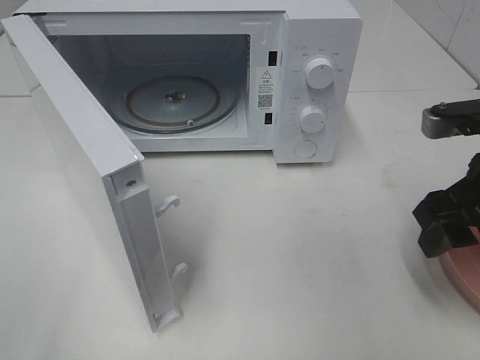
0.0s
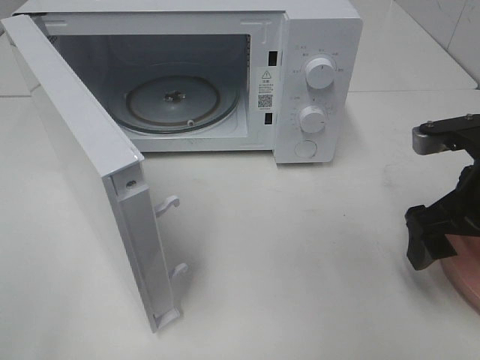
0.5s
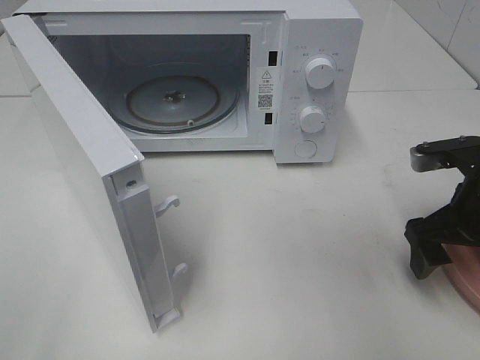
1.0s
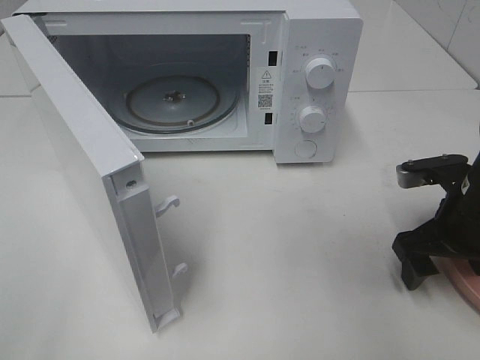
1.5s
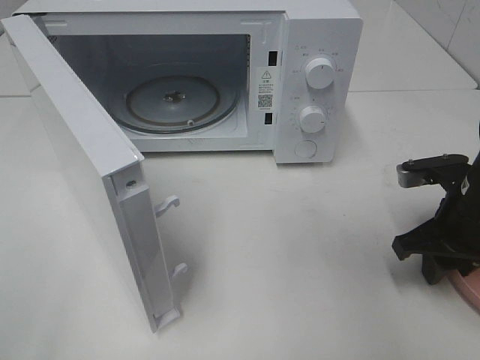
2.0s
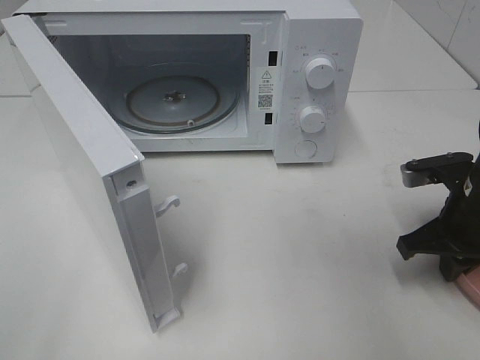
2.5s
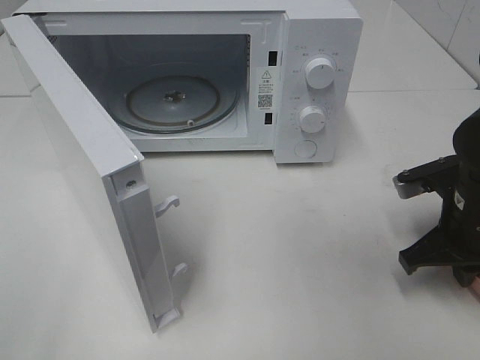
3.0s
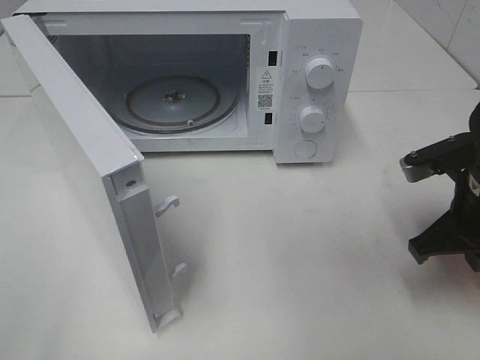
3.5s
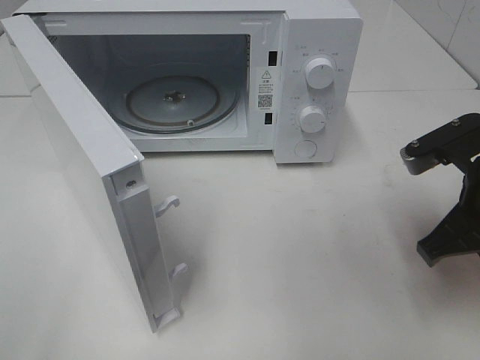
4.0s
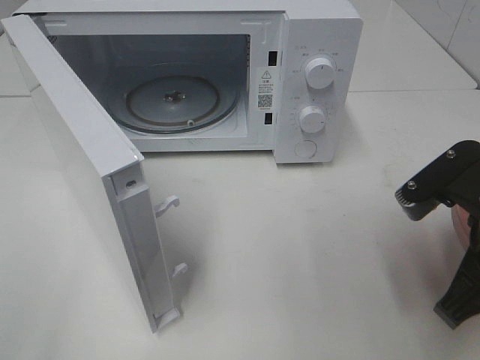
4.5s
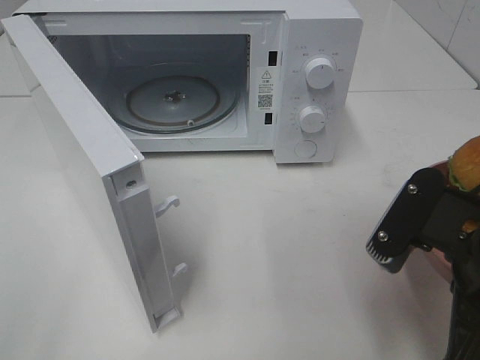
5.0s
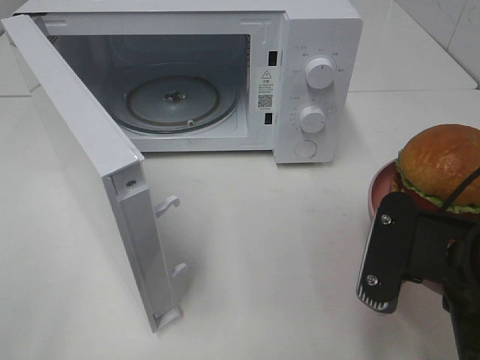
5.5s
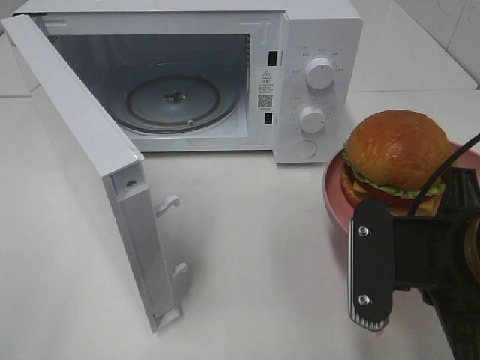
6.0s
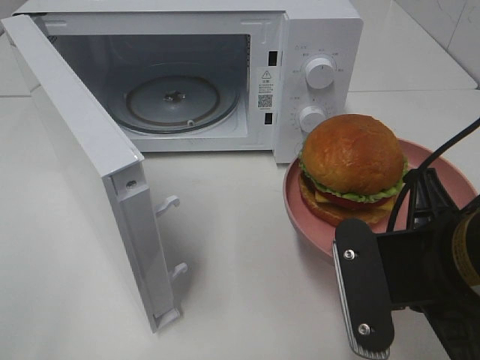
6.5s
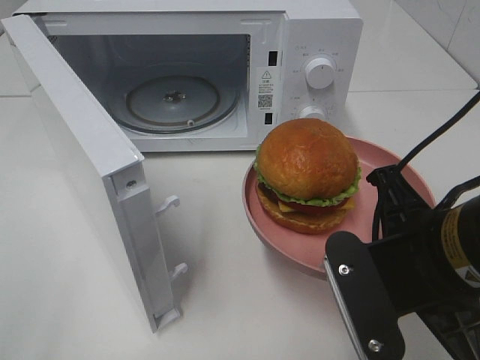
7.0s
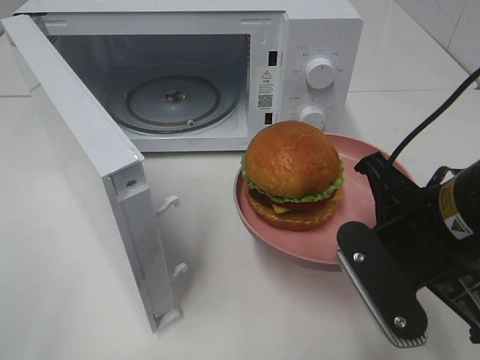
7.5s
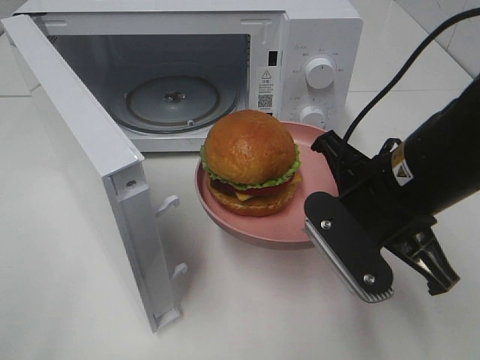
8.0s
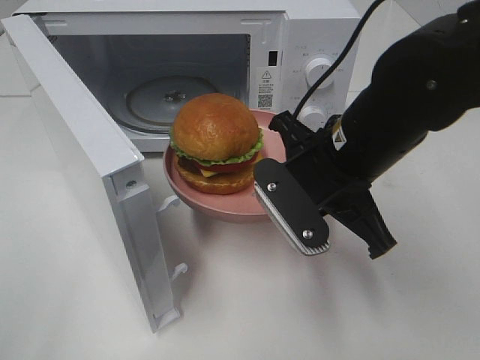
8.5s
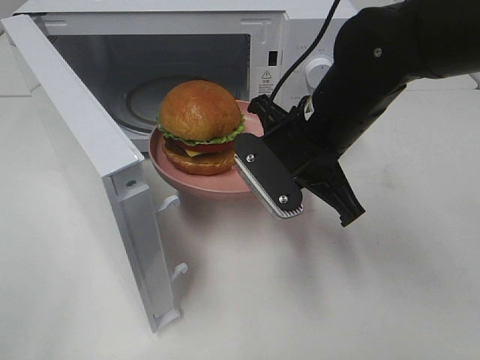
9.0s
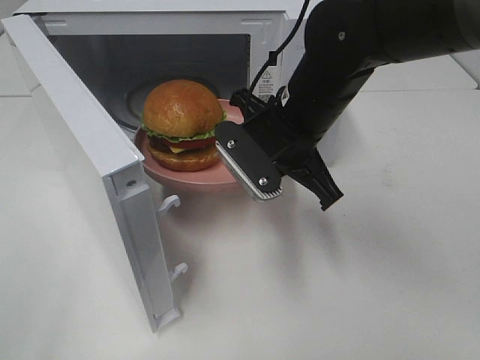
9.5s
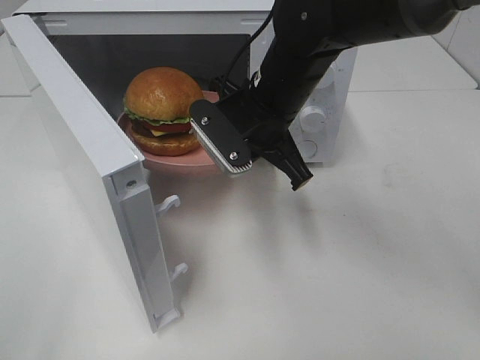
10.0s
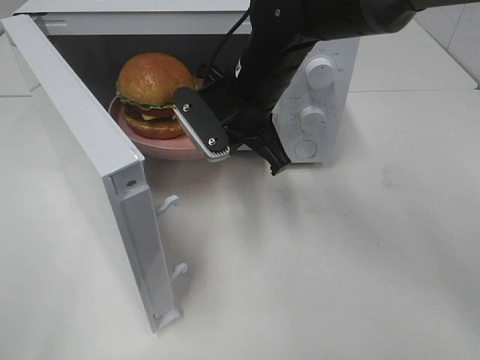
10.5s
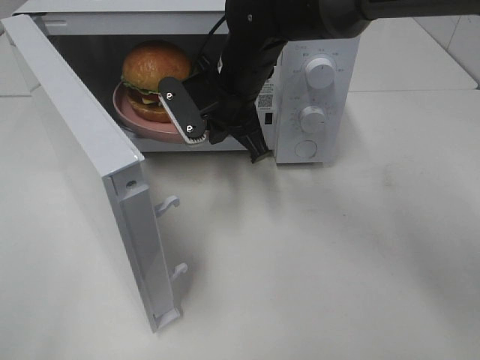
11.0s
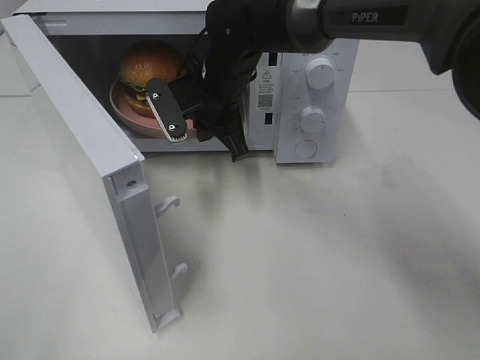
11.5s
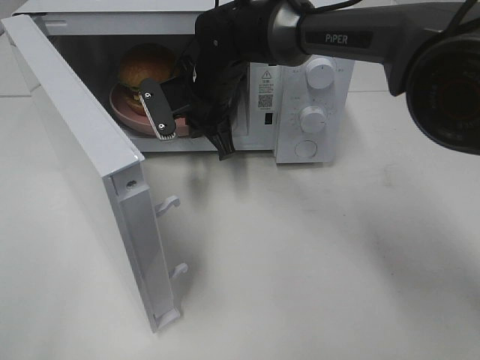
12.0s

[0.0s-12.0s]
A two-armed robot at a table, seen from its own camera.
Task of the whole recording: Heat the burger.
Step, 0.0s to 2.5s: Right hand: grab the plate with the hamburger.
0.0s to 2.0s: The right gripper goes roughly 10 cm downward, and closes up.
2.0s to 4.0s: The right gripper is displaced upward by about 5 cm, and closes its fingers.
4.0s to 6.0s: The right gripper heads backward and to the left, covering approximately 10 cm.
6.0s to 8.0s: The right gripper moves forward, some 10 cm.
8.0s to 10.0s: The right gripper is displaced forward and to the left by some 15 cm.
10.0s to 12.0s: The right gripper shifts roughly 10 cm forward and to the left.

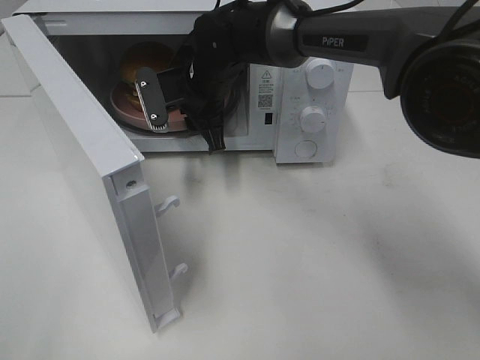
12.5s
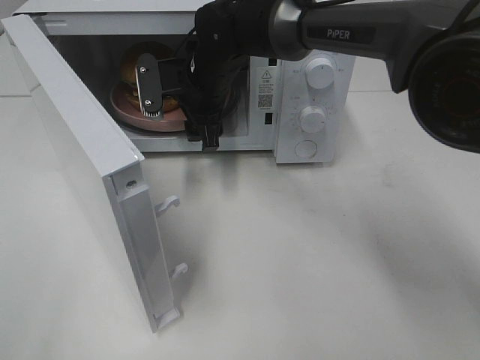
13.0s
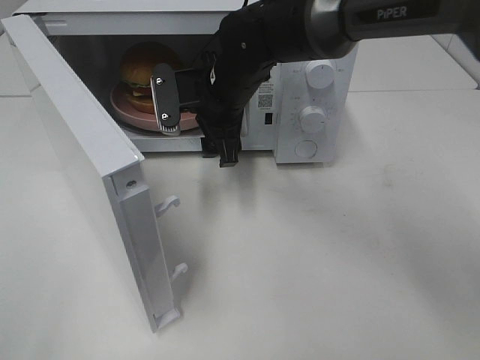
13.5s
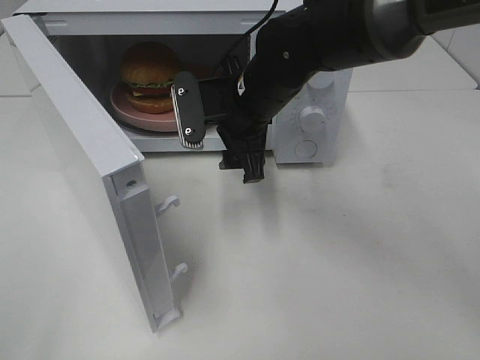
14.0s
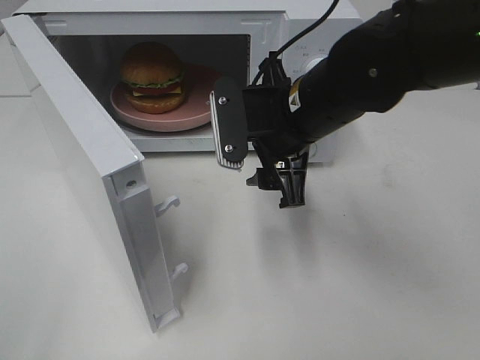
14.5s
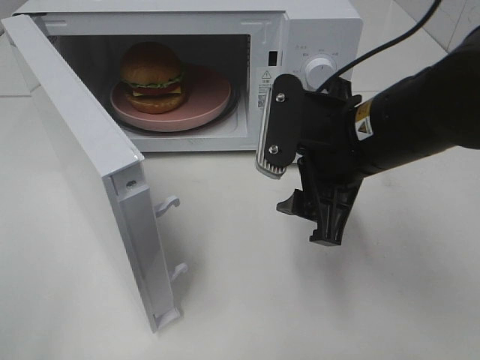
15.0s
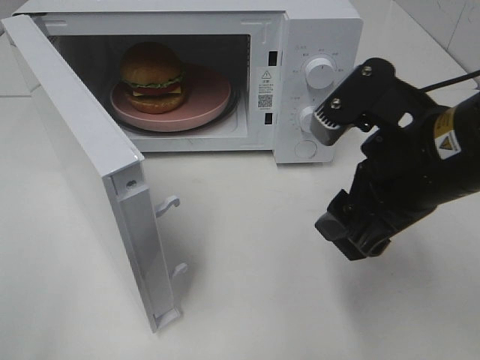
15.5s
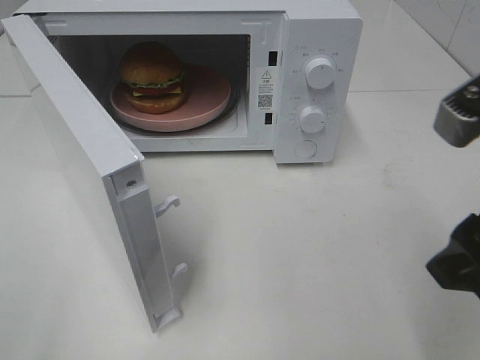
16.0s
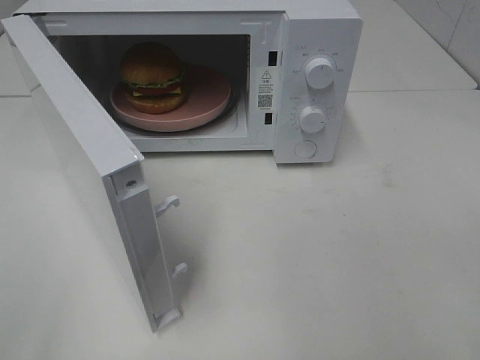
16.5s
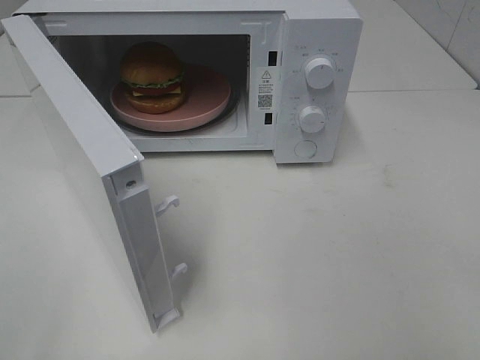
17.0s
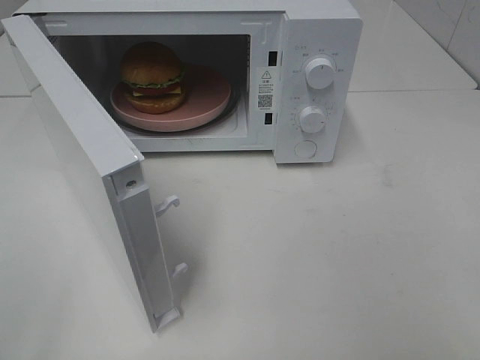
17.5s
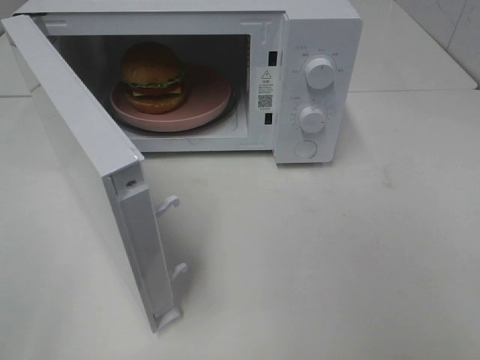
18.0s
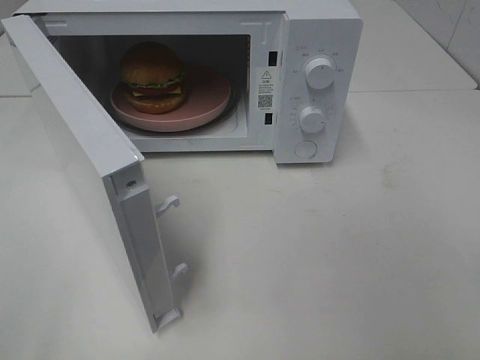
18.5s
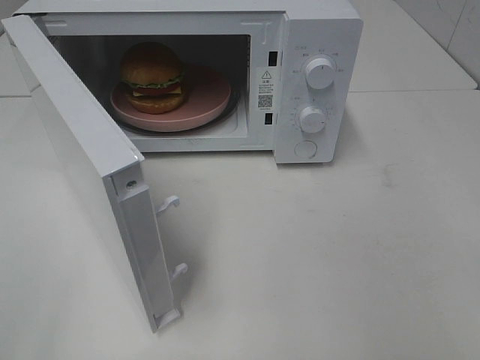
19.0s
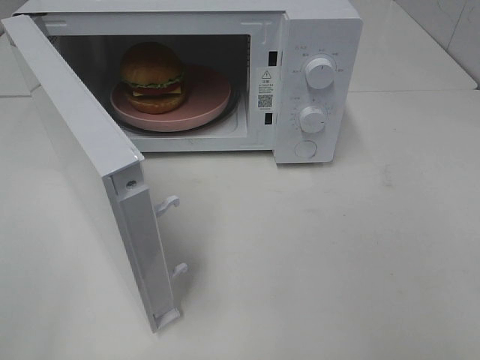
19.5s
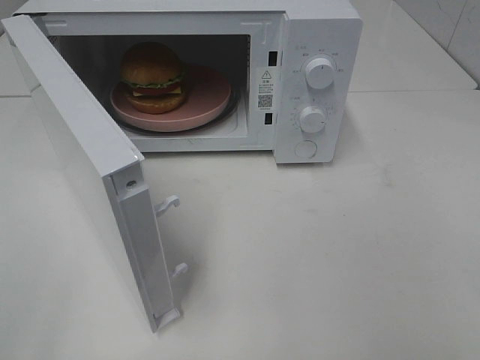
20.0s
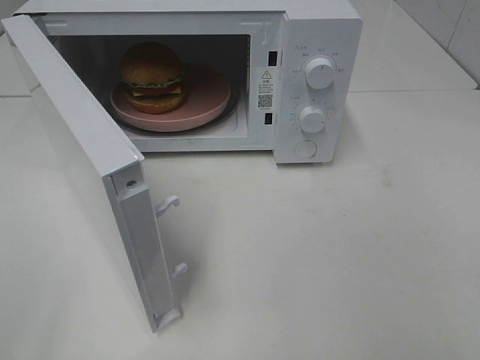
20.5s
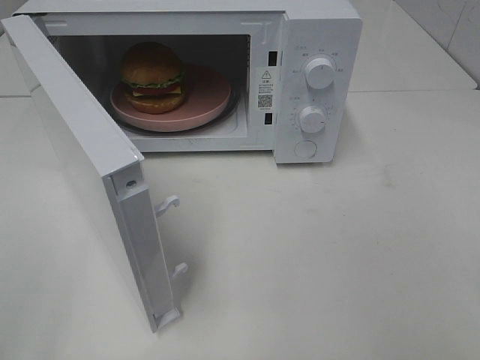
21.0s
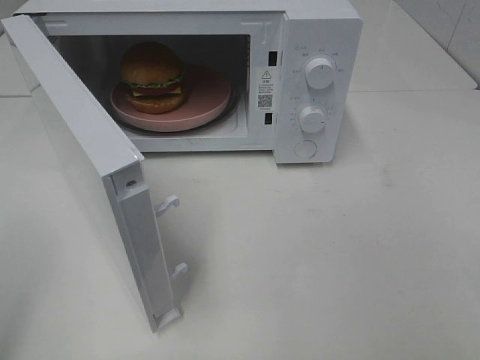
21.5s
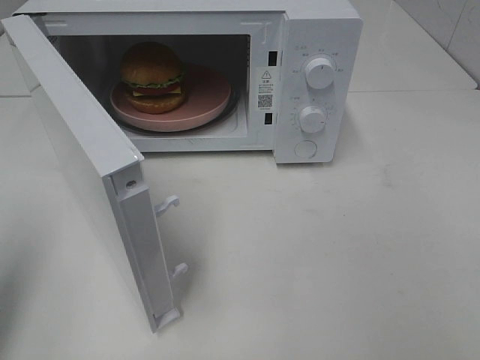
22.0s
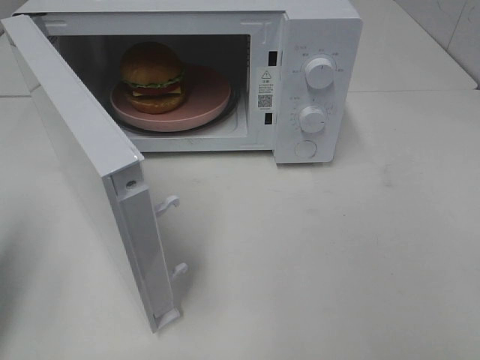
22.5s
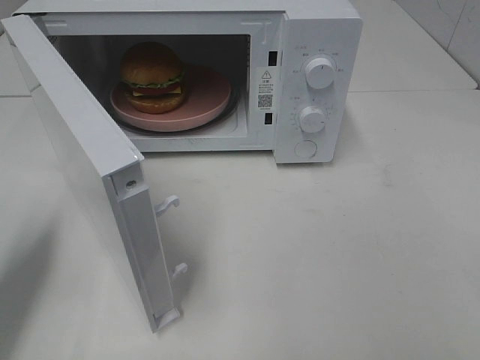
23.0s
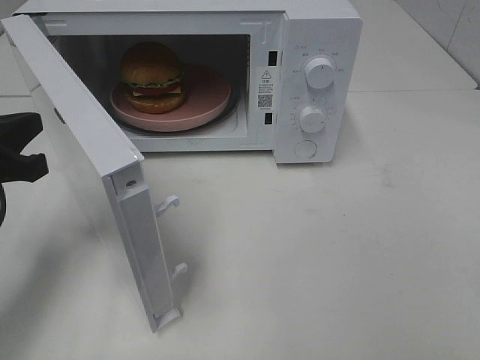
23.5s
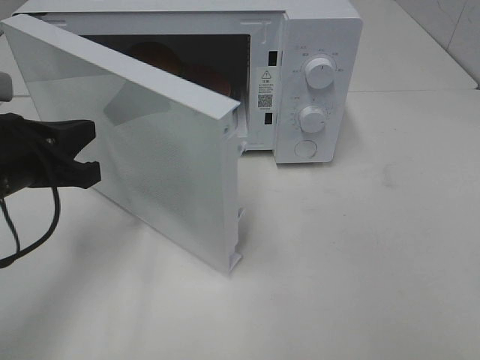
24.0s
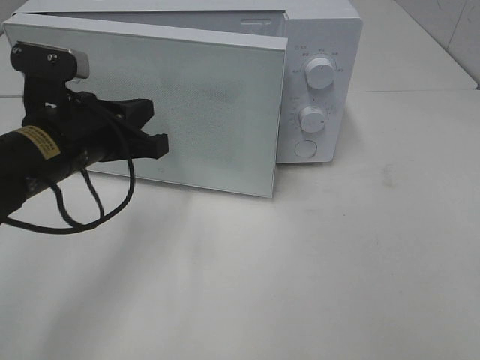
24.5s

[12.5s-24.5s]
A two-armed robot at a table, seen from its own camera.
Task of the whole recording: Heat the burger.
12.5s to 14.5s: The right gripper moves backward and to the right, some 20 cm, and opens its fingers.
14.5s to 16.5s: The right gripper is displaced backward, to the right and upward by roughly 30 cm.
18.5s to 20.5s: Neither gripper changes place.
20.5s to 22.5s: The left gripper goes some 15 cm forward, and closes its fingers.
22.5s to 24.5s: The left gripper heads to the right and forward, covering about 20 cm.

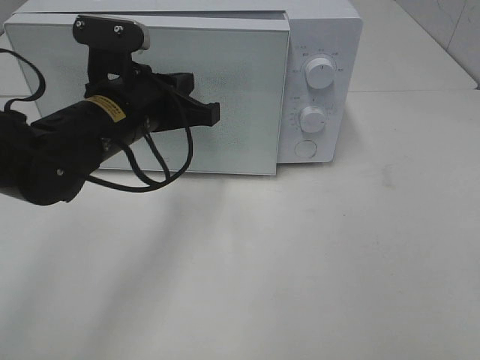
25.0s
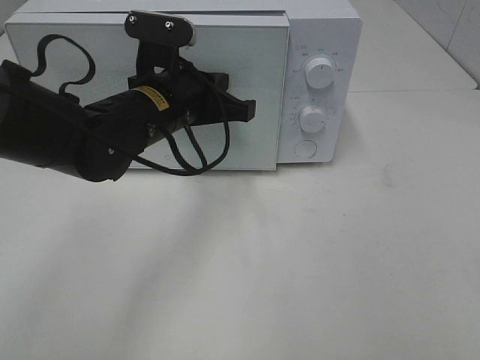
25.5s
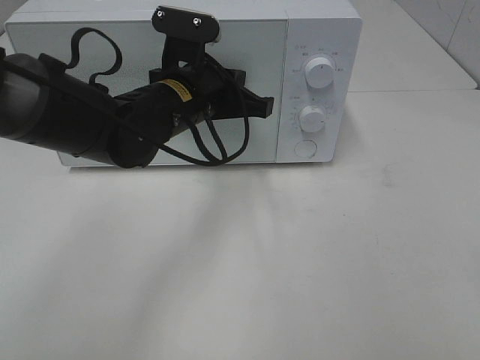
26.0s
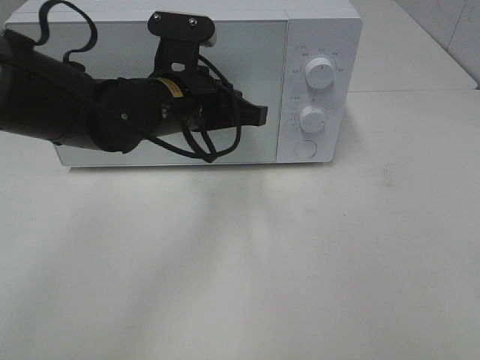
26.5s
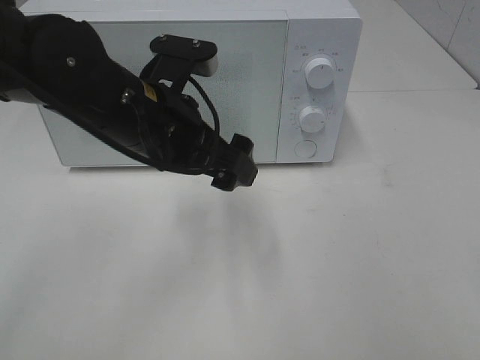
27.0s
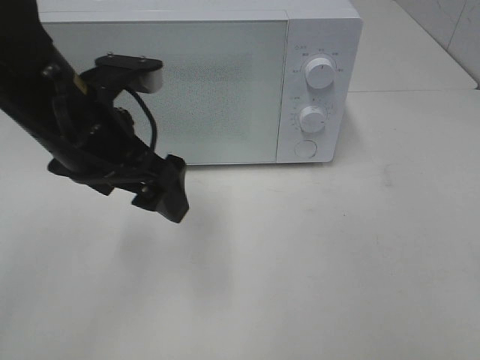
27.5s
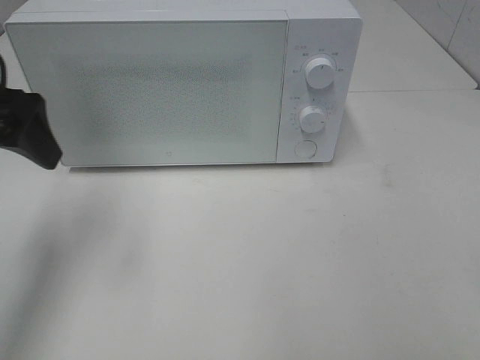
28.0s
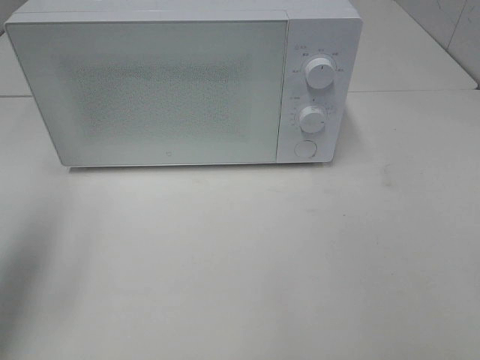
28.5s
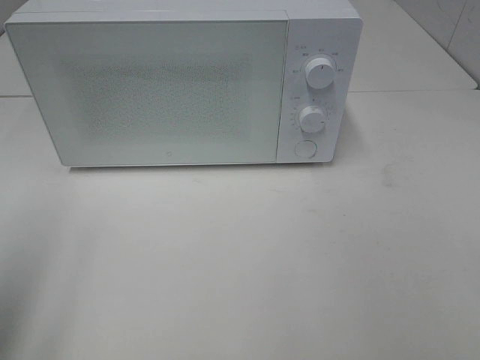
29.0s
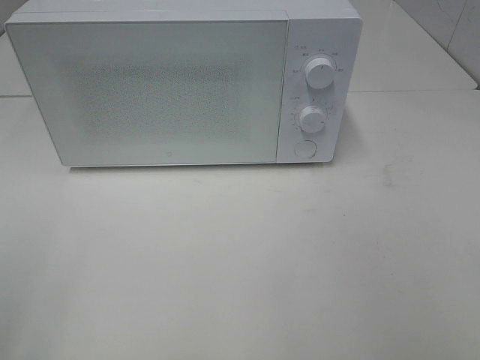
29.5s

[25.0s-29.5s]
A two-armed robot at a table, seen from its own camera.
Task of the whole recording: Heat the burger.
25.0s to 27.0s: The left gripper moves some 5 cm, and opens its fingers.
27.0s to 29.5s: The left gripper heads to the left and backward, covering approximately 35 cm.
